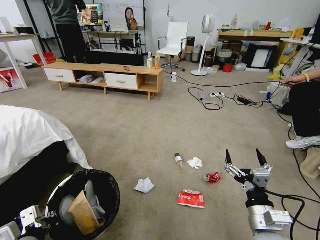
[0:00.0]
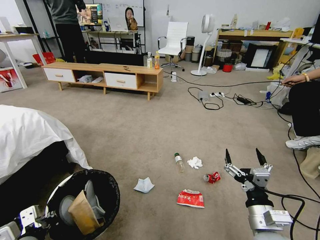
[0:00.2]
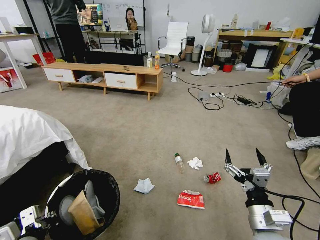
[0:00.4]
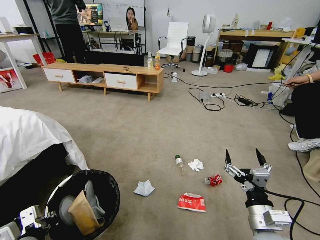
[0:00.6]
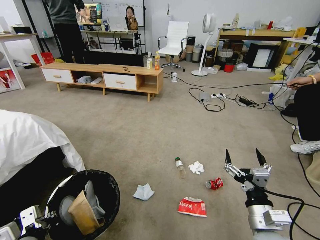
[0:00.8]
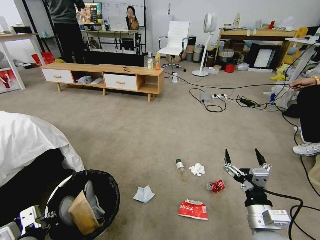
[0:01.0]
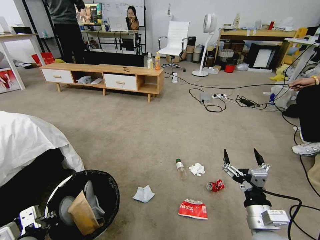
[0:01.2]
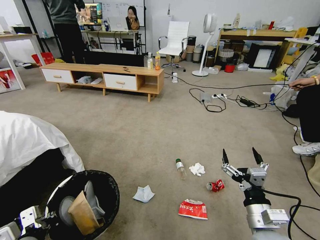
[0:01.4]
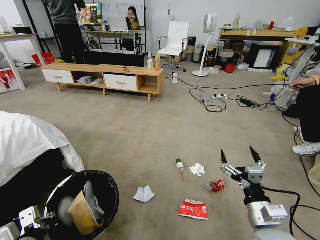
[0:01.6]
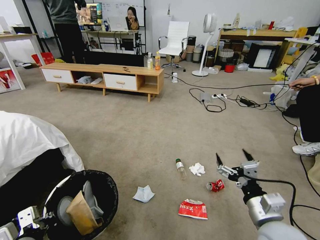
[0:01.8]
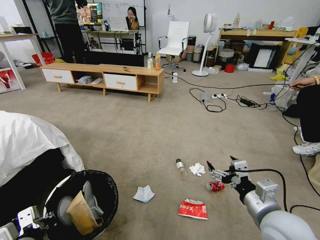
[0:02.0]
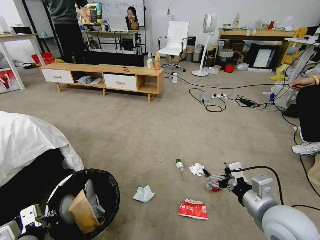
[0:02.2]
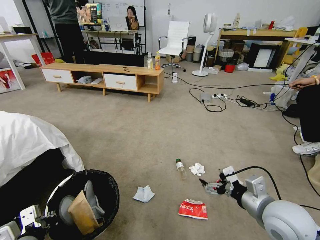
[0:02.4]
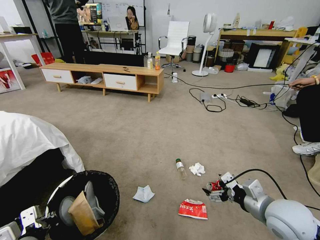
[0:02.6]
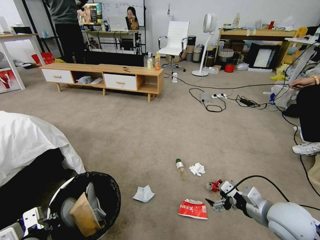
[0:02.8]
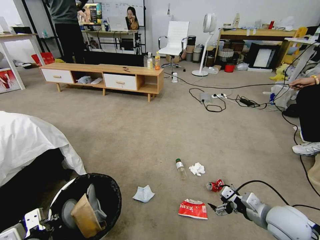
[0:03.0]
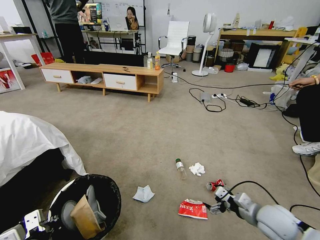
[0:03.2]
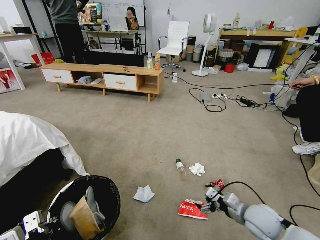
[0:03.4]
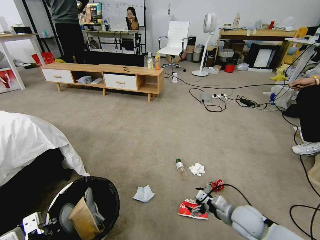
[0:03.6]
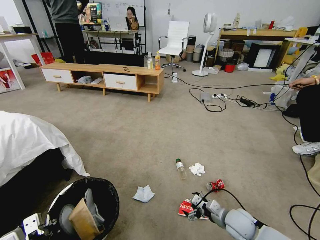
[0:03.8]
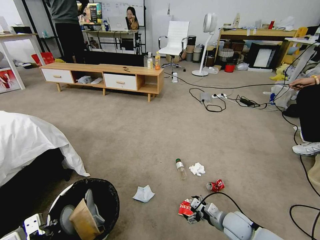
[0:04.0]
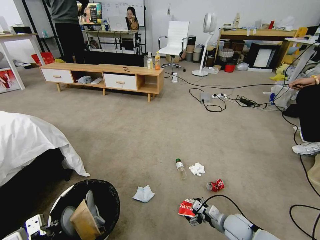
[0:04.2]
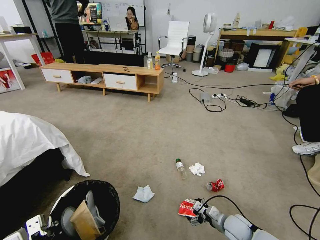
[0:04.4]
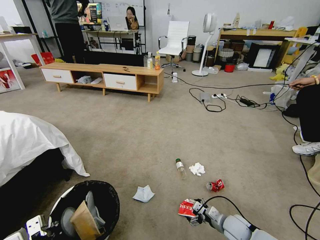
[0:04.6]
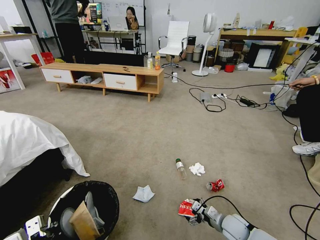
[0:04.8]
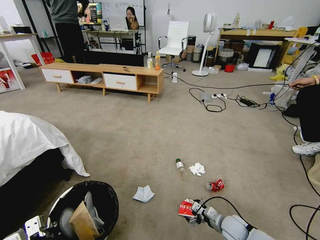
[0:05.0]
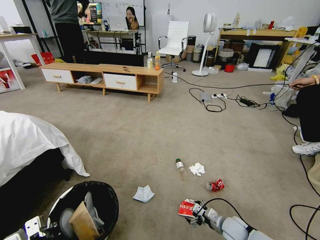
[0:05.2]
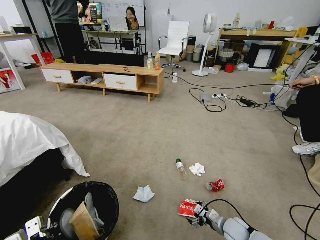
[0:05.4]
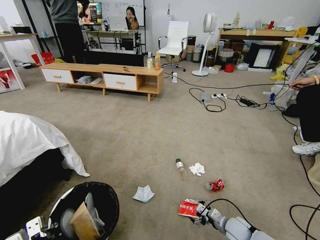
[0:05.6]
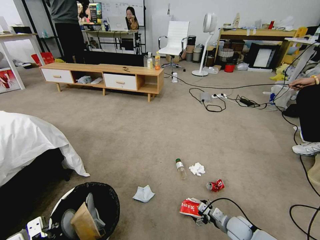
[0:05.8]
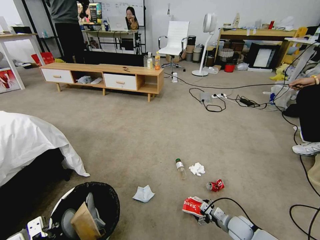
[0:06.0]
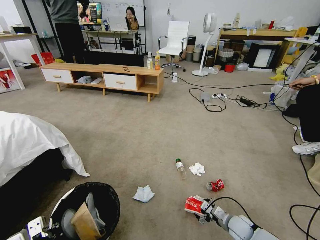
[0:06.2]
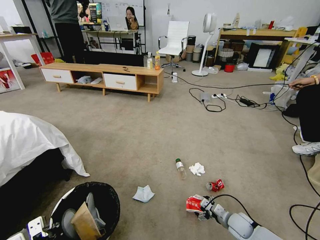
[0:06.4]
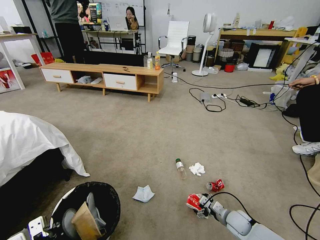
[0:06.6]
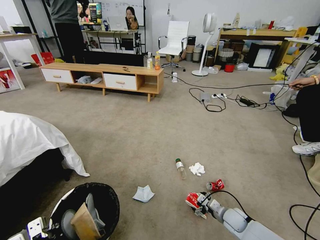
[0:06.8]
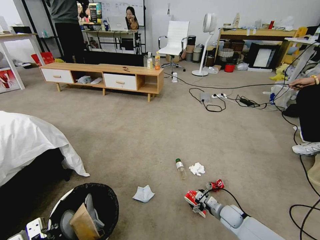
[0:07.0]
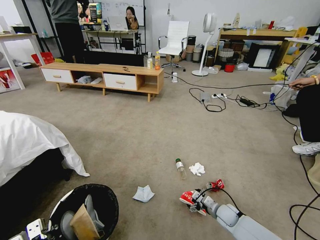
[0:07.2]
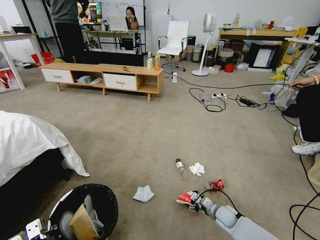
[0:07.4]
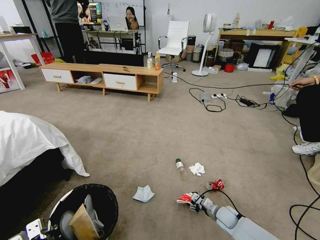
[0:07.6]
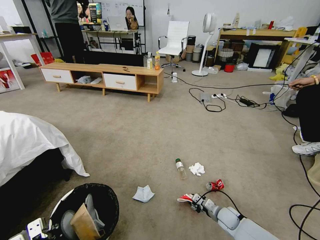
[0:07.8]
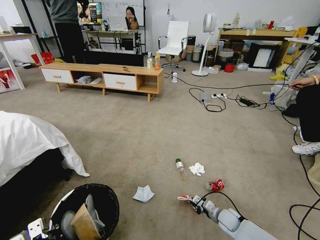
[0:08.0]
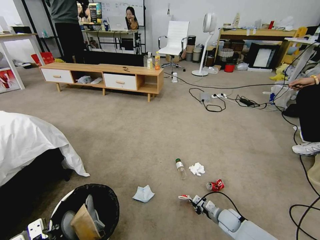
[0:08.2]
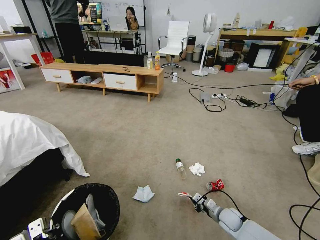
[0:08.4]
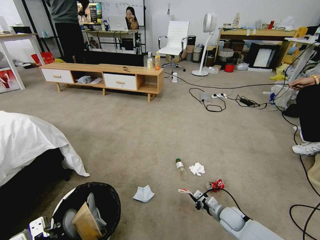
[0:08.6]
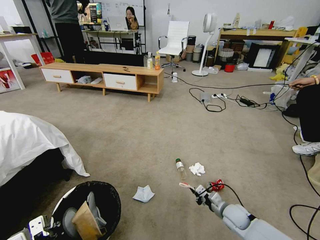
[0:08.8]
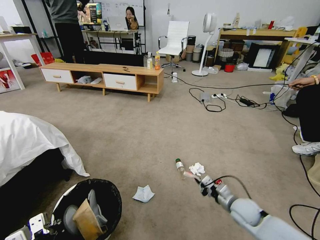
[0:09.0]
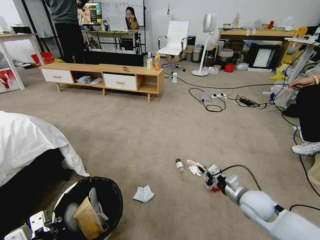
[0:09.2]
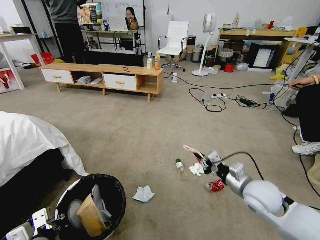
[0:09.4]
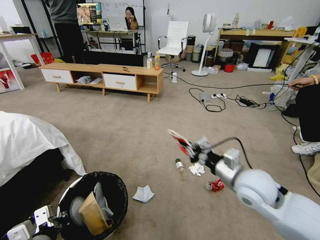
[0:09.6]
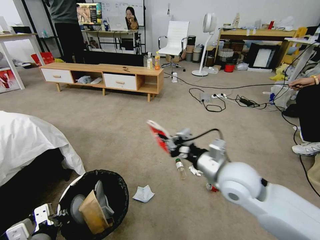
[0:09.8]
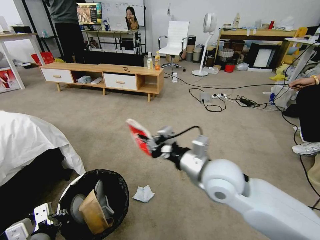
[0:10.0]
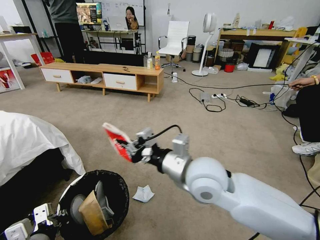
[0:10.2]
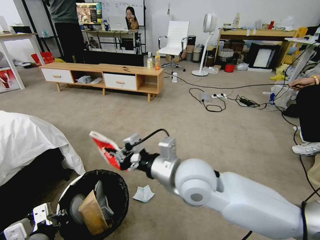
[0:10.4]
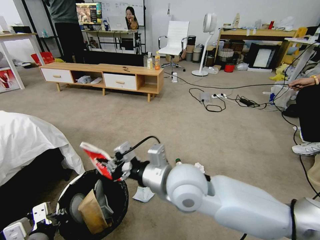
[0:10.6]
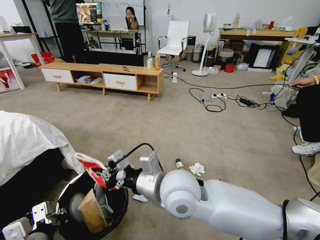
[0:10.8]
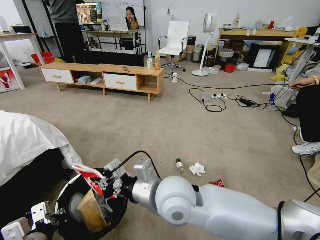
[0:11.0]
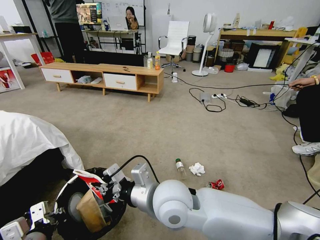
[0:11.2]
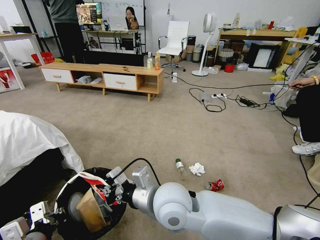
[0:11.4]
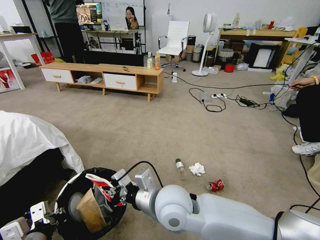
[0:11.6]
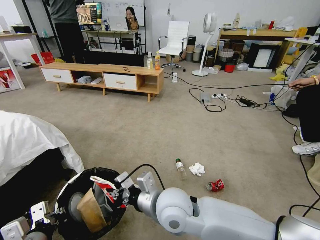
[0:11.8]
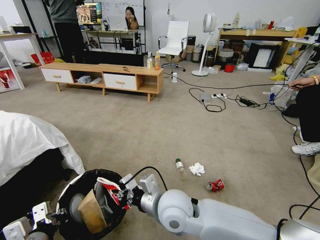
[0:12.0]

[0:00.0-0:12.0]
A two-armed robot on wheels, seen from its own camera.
Task of the whole recording: Pick up the trash bin and place the garbage on the floor into it.
0:01.6 to 0:03.0: The right gripper shifts about 10 cm to the right and forward, and moves approximately 5 cm upward and comes back.
0:03.0 to 0:04.4: The right gripper moves downward, roughly 15 cm.
0:04.4 to 0:06.0: The right gripper ends up roughly 5 cm from where it was.
0:06.0 to 0:07.6: The right gripper changes place by about 5 cm, and closes.
0:07.6 to 0:09.0: The right gripper moves upward, about 10 cm, and closes.
0:09.0 to 0:10.4: The right gripper is displaced upward and to the left by some 35 cm.
0:10.4 to 0:12.0: The right gripper moves downward, roughly 10 cm.

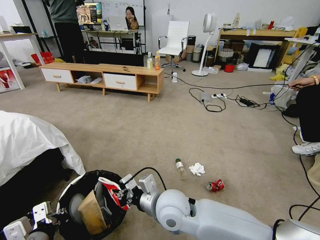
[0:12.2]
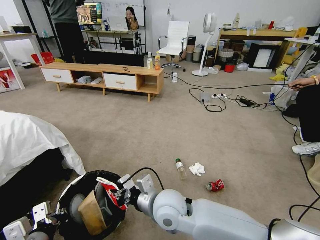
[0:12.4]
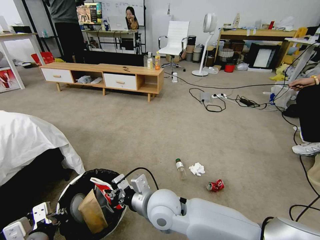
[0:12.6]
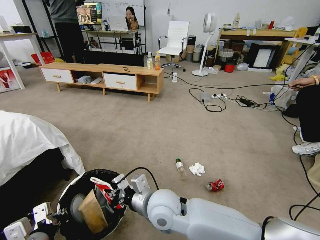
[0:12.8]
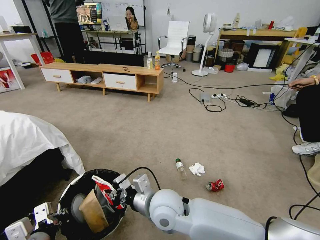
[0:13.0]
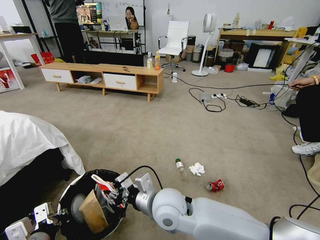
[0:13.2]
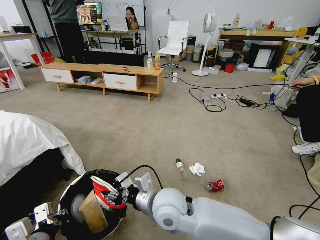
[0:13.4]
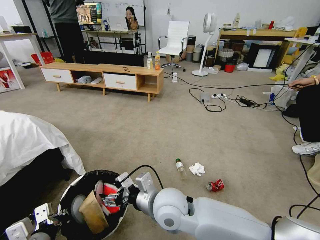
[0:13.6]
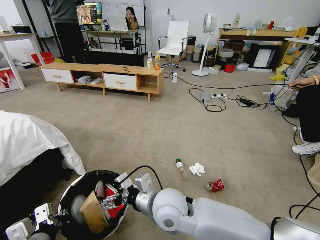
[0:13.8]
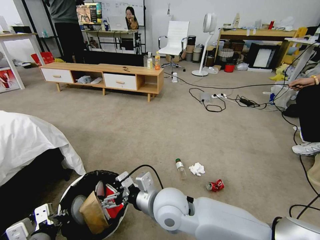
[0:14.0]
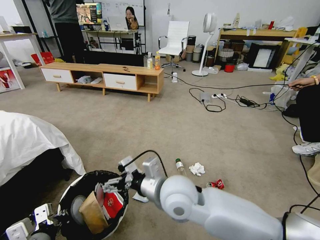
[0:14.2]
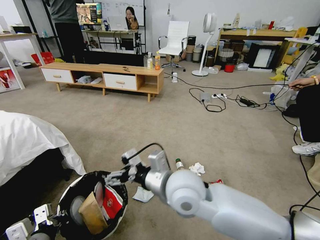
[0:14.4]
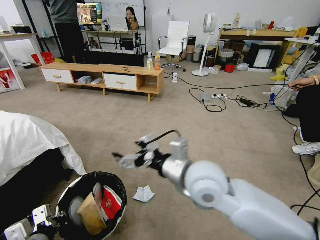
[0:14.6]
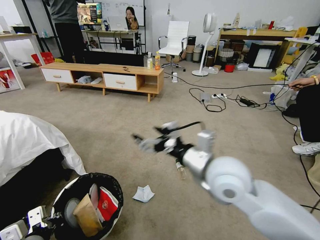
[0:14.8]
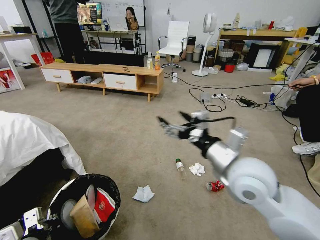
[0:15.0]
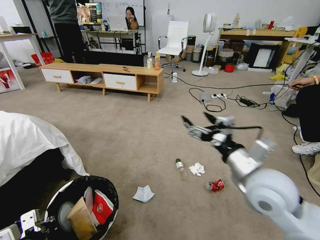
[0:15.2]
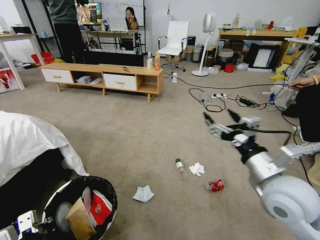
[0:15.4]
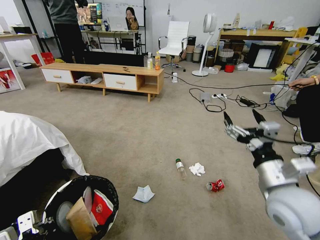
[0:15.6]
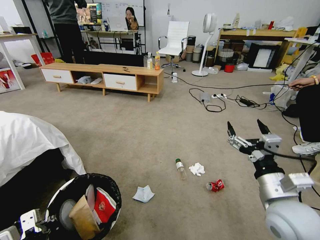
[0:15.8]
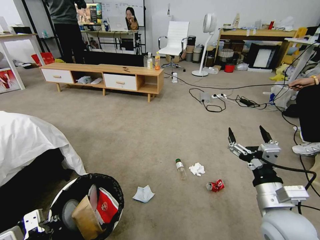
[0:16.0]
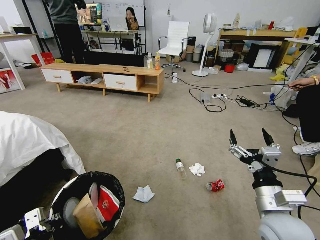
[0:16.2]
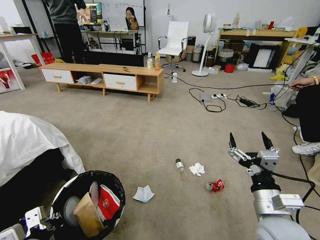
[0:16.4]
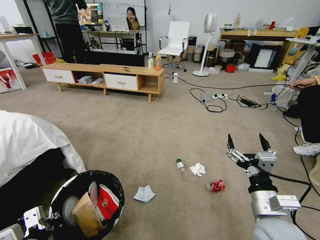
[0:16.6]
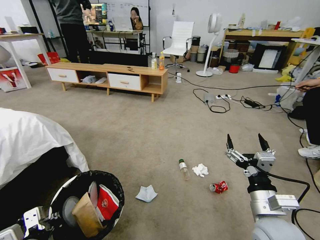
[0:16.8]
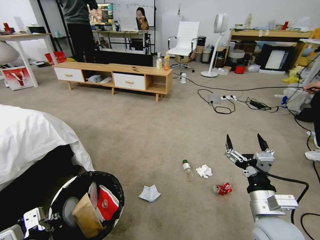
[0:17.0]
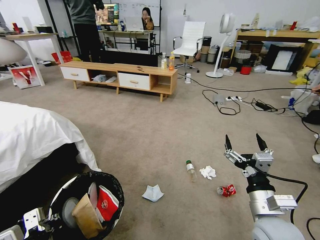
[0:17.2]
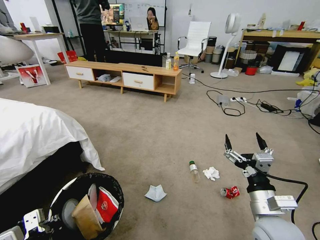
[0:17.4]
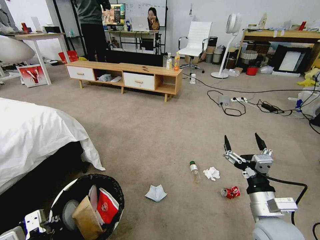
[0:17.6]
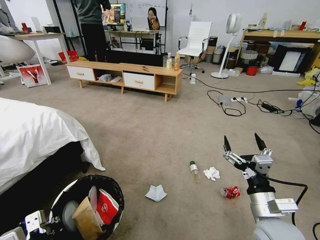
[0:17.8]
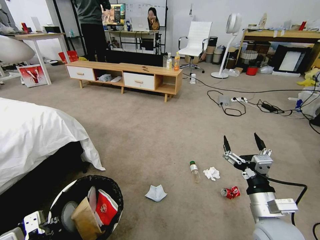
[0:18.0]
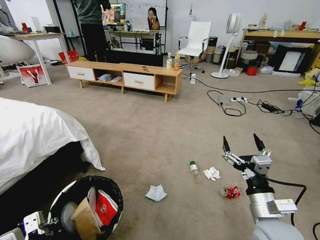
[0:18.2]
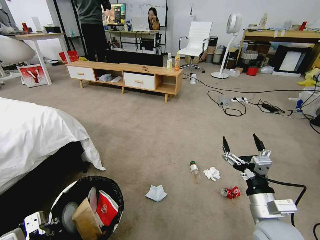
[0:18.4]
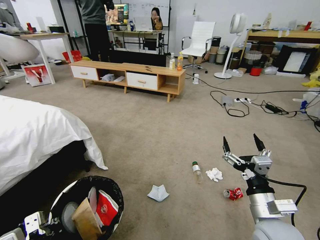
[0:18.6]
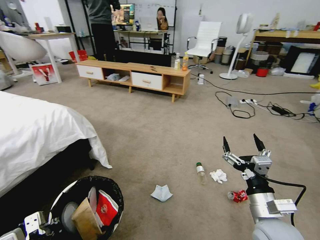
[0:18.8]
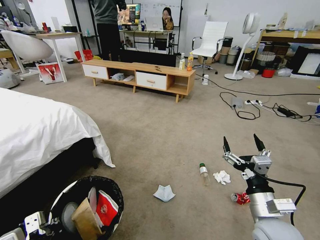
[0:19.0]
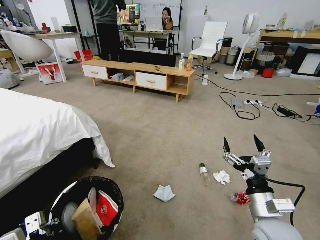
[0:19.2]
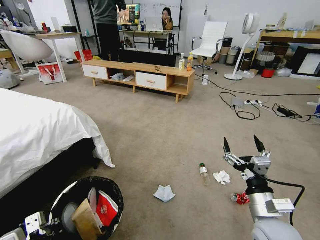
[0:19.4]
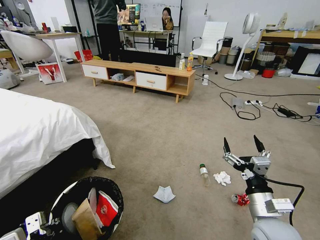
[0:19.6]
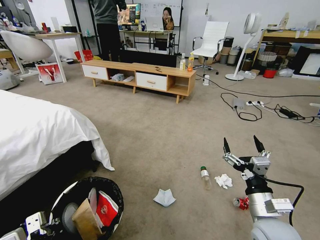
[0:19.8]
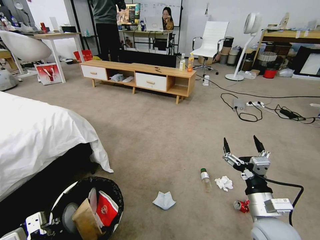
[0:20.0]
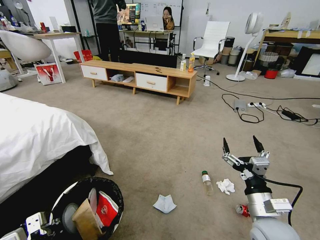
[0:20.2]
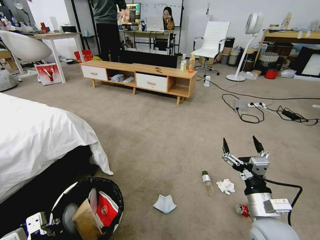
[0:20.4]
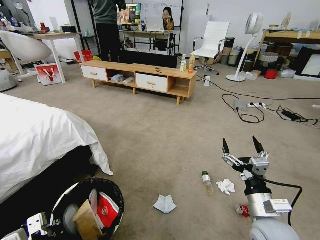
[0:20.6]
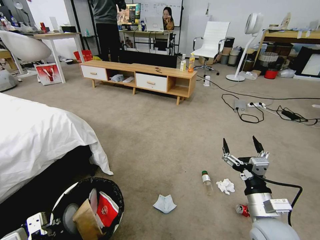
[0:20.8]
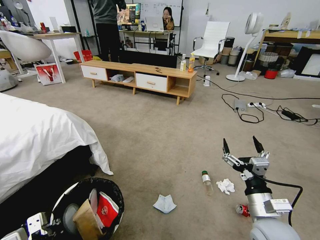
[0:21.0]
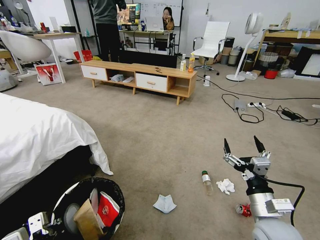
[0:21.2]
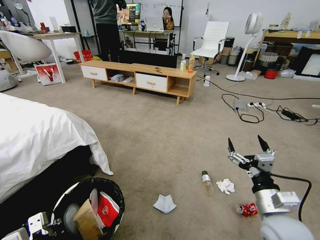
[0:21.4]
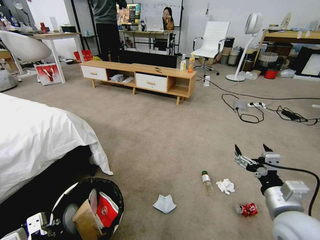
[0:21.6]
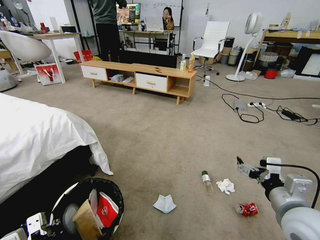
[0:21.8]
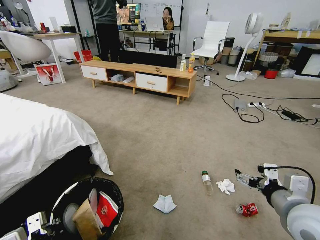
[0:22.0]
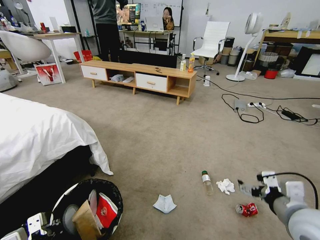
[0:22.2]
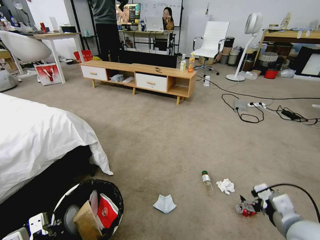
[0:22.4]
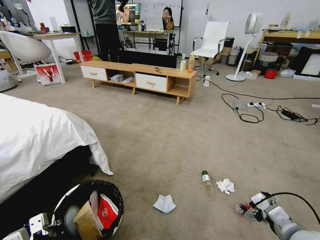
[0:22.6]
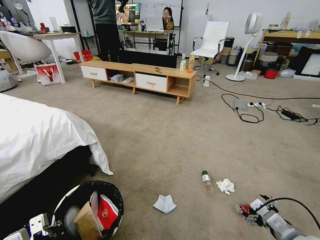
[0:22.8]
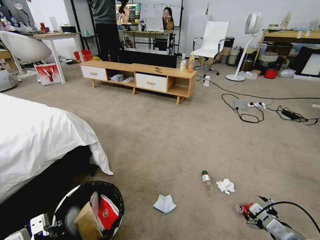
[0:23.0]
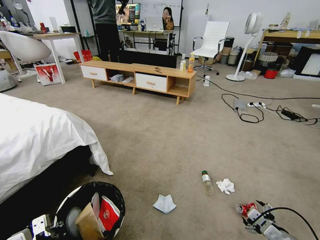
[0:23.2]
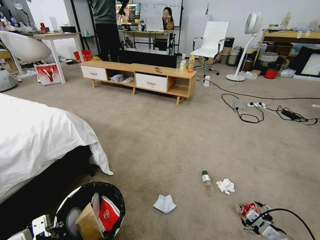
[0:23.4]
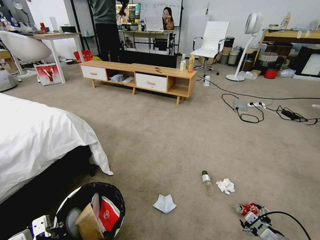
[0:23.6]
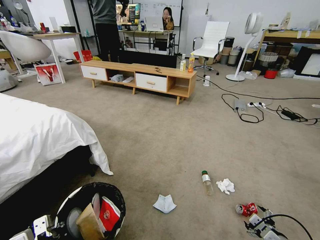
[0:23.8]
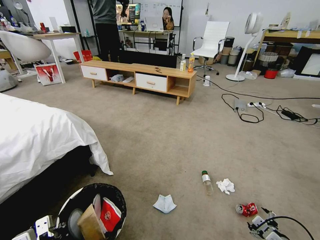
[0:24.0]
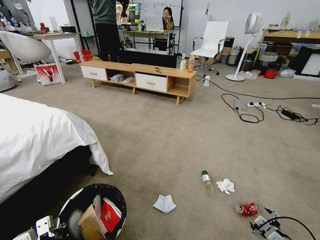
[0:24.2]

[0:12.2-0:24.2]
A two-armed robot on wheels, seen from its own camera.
Task of the whole recording: Pick up the trash bin and place the garbage on the floor into it.
0:12.2 to 0:13.8: The right gripper opens.
0:13.8 to 0:15.2: The right gripper travels to the right and upward by approximately 25 cm.
0:15.2 to 0:16.6: The right gripper goes some 10 cm downward and backward.
0:19.8 to 0:21.2: Neither gripper changes place.
0:21.2 to 0:22.6: The right gripper heads to the right, covering roughly 5 cm, and reaches roughly 10 cm upward, then returns.
0:22.6 to 0:24.2: The right gripper heads downward and to the right, covering about 20 cm.
